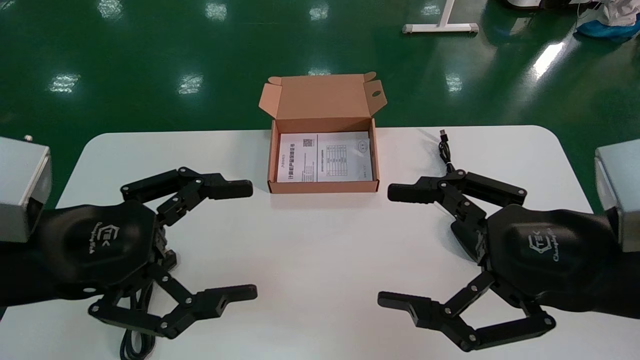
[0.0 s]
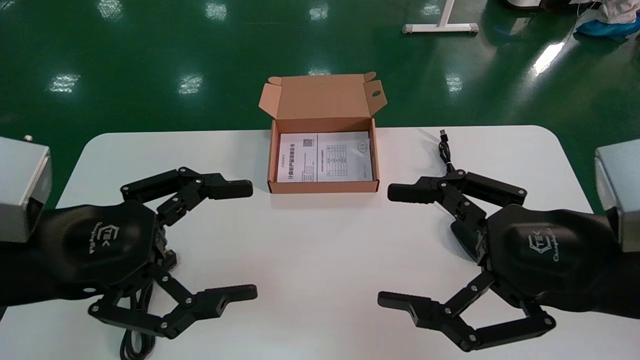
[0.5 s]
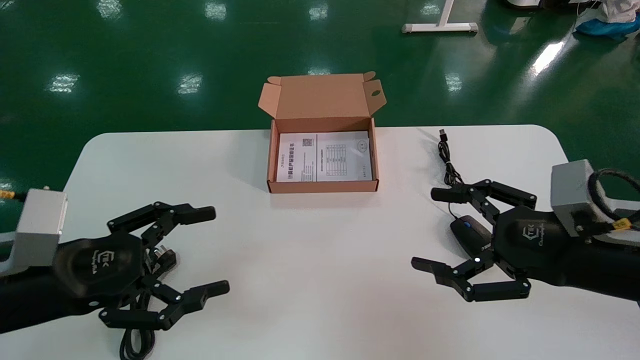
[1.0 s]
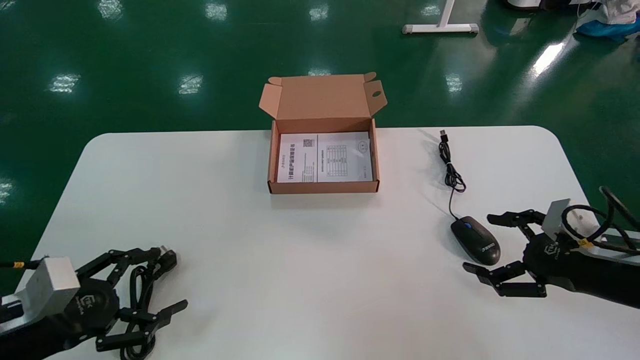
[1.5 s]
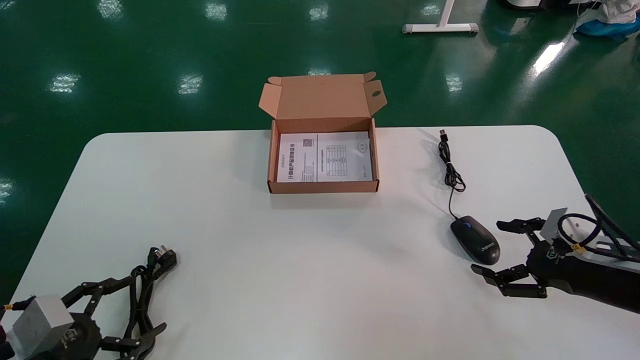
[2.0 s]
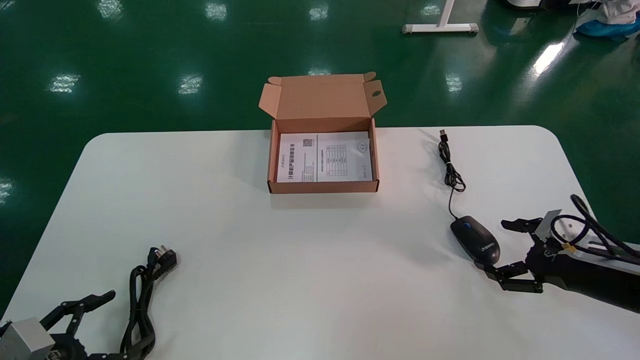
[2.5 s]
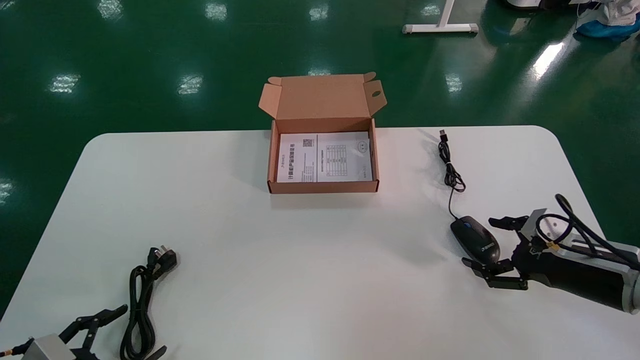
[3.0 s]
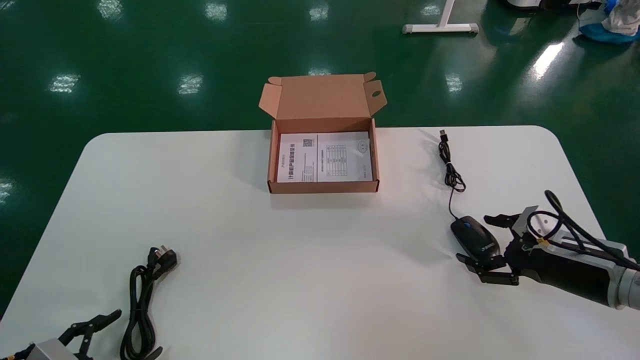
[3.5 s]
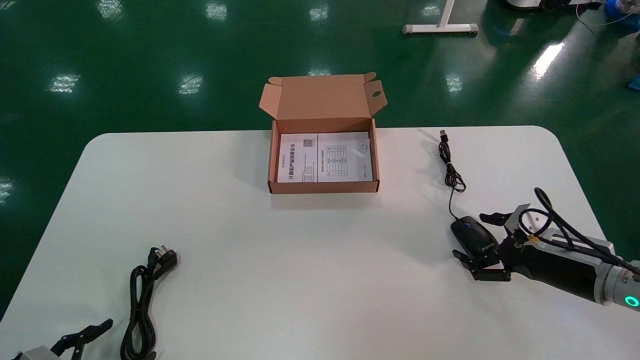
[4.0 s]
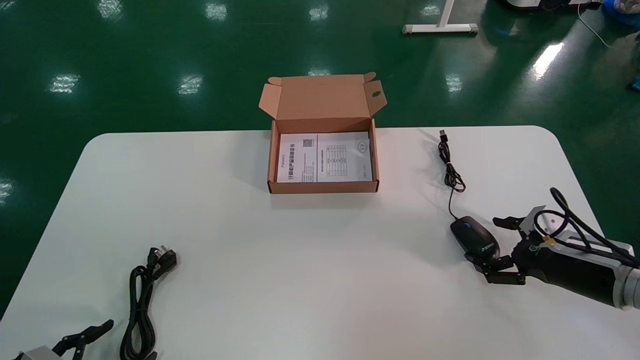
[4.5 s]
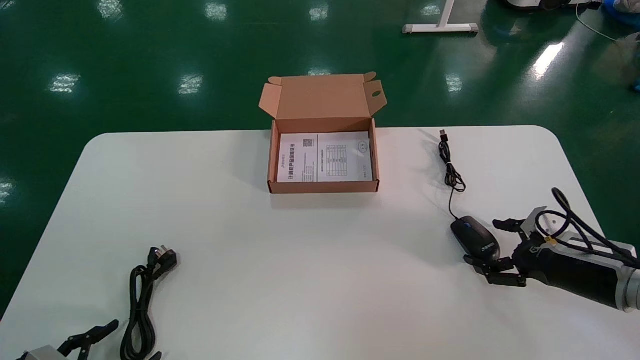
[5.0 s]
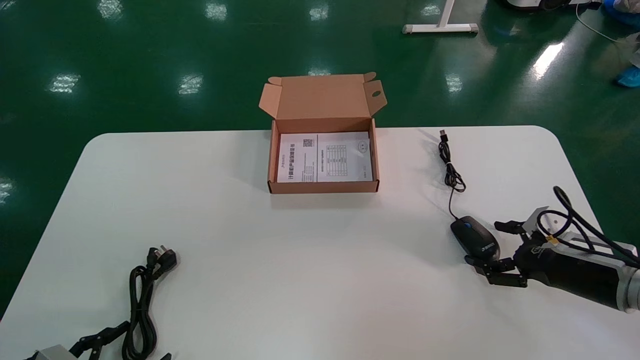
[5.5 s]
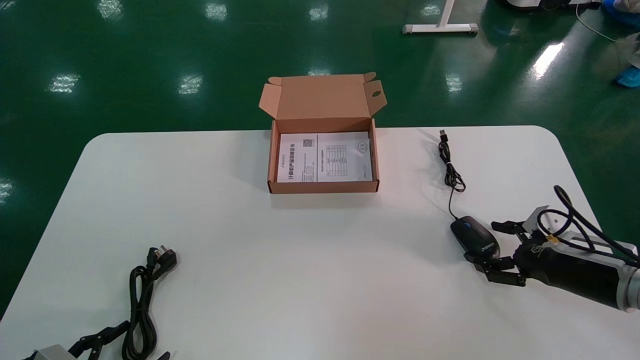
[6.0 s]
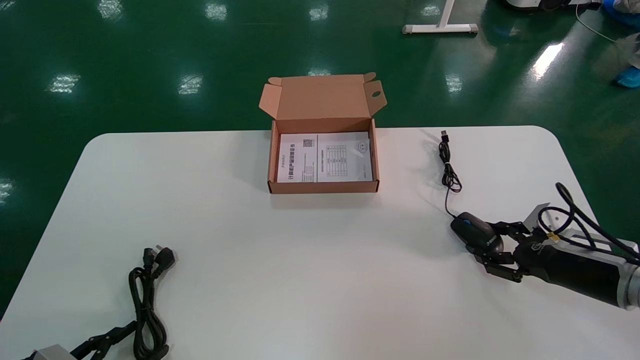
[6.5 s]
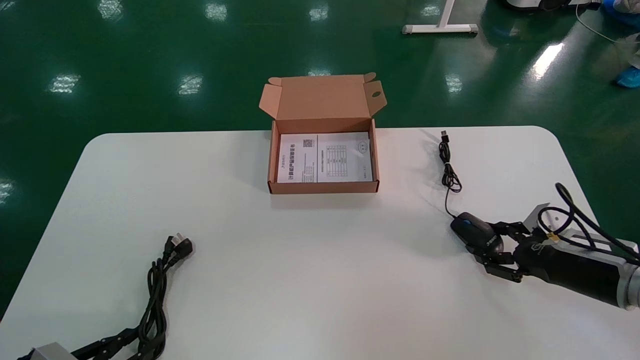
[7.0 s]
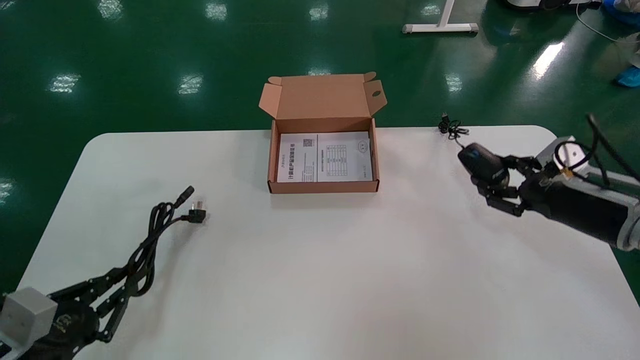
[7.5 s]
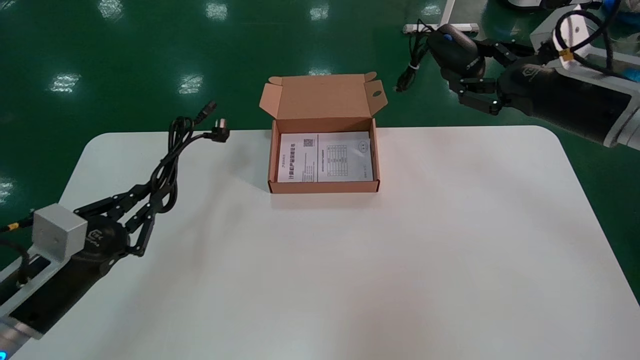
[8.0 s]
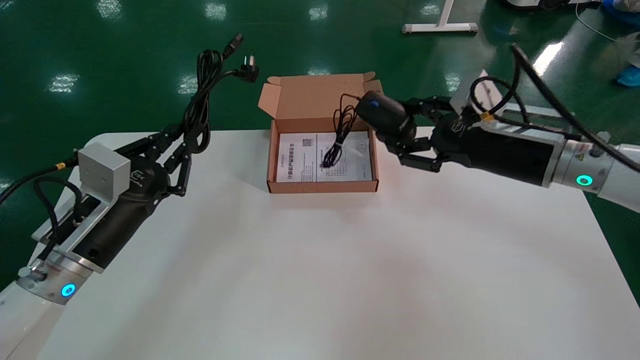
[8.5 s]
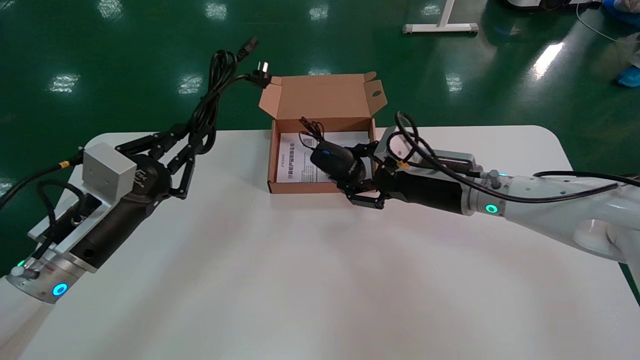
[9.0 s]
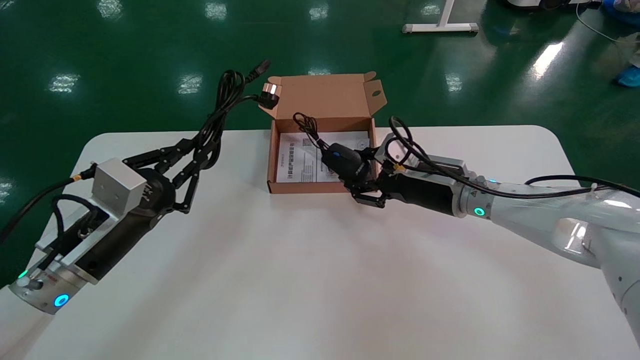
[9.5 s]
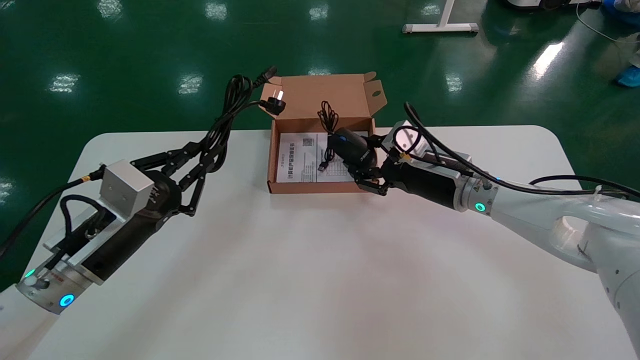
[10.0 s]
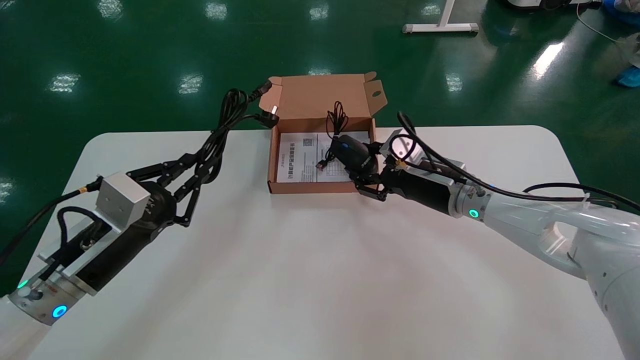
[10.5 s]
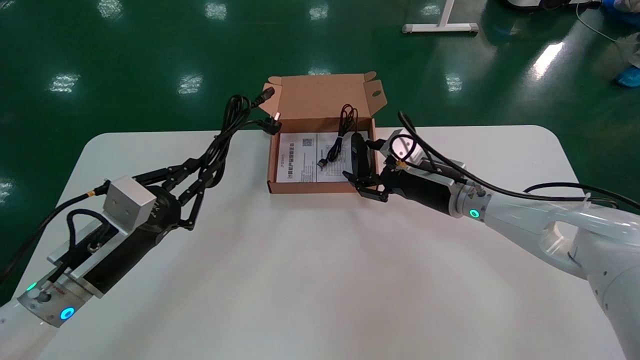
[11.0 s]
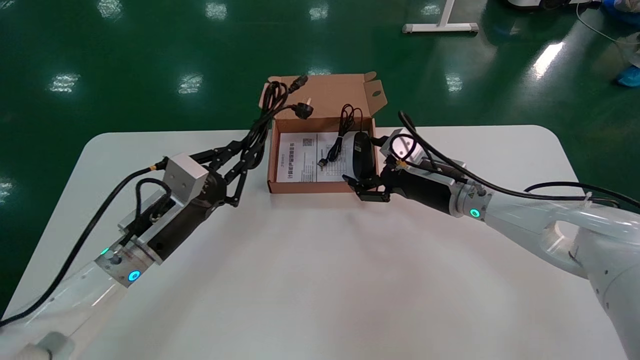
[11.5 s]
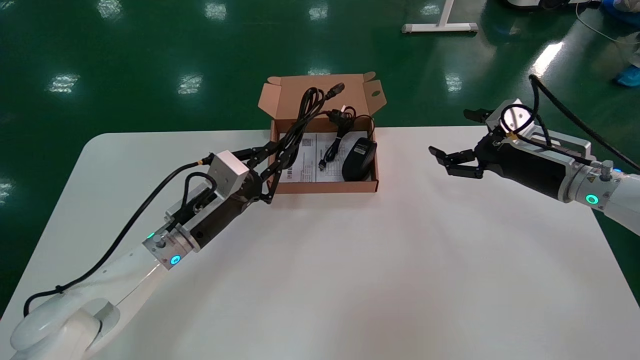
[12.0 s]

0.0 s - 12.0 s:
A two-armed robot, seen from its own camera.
Step, 1.5 s - 7.5 s: Grab and pick up the mouse and power cord from the accessory packaging area.
0.0 s - 2.0 s: The right gripper shifts approximately 25 cm to the right, downward and forward, while the left gripper goes about 25 cm downward and to the left.
2.0 s - 4.0 s: The left gripper travels downward by some 10 cm, while the right gripper moves approximately 5 cm.
4.0 s - 6.0 s: The grippers make only small movements.
6.0 s - 8.0 s: The left gripper shifts some 20 cm upward and forward, and closes up, while the right gripper is displaced upward by approximately 20 cm, and closes its fingers.
8.0 s - 10.0 s: The left gripper is displaced to the right and upward by roughly 10 cm; the right gripper shifts approximately 20 cm to the left, downward and forward.
10.0 s - 12.0 s: The right gripper travels to the right by about 15 cm, and opens; the left gripper moves forward and to the right, some 15 cm.

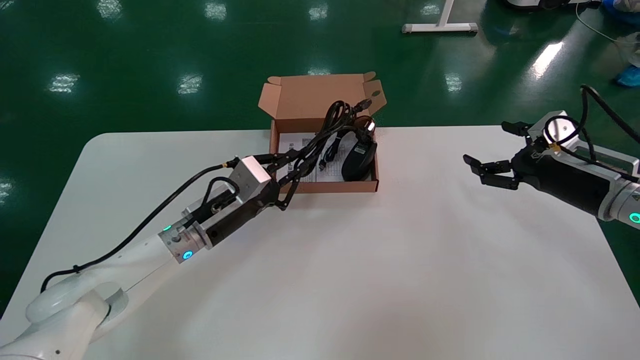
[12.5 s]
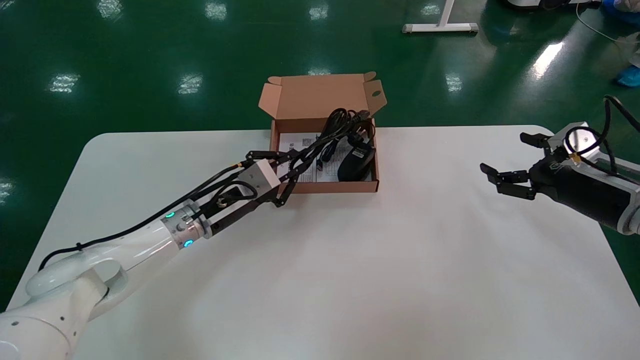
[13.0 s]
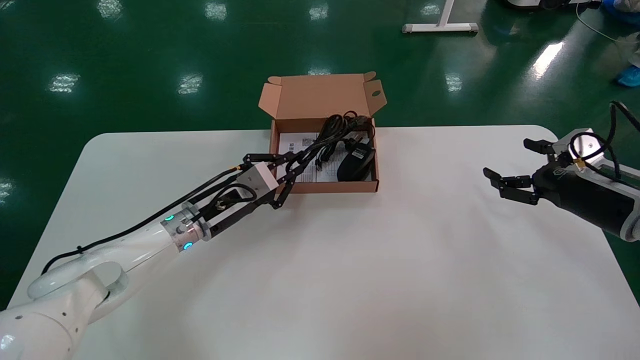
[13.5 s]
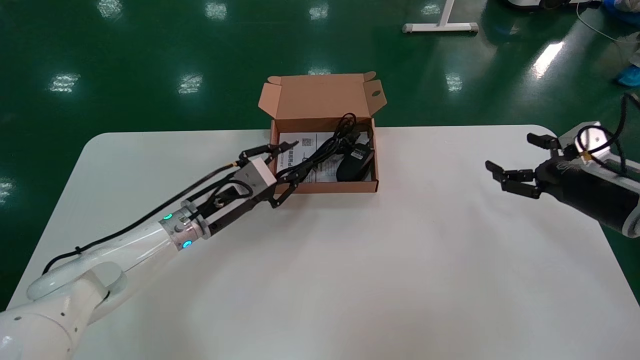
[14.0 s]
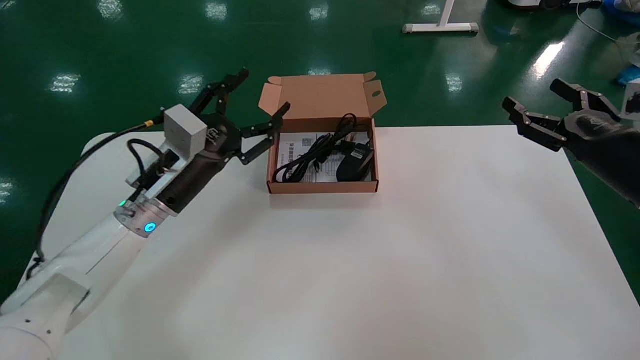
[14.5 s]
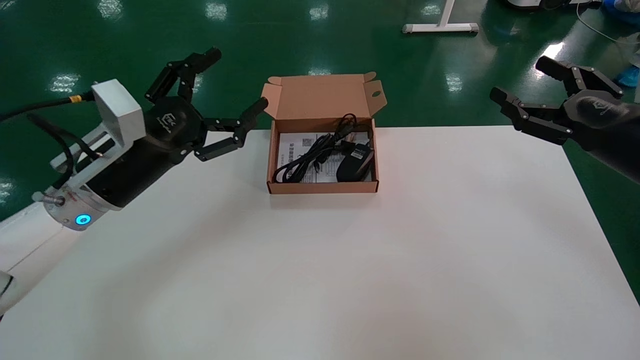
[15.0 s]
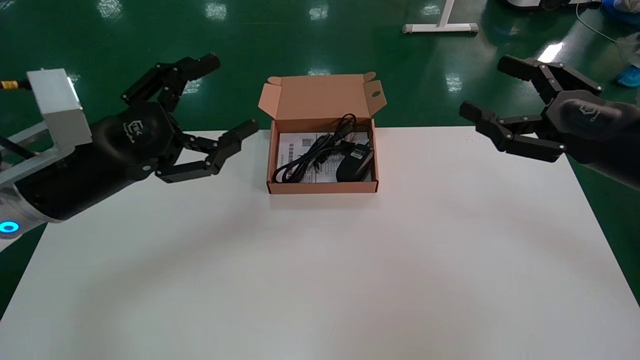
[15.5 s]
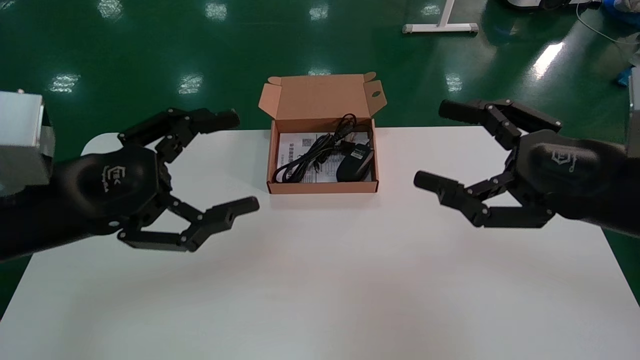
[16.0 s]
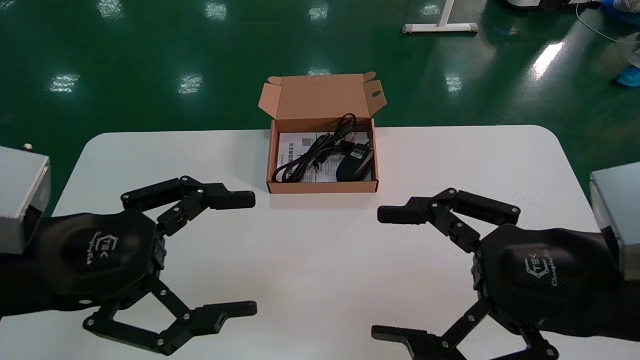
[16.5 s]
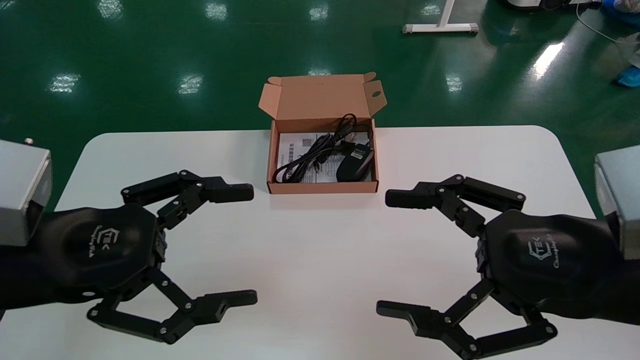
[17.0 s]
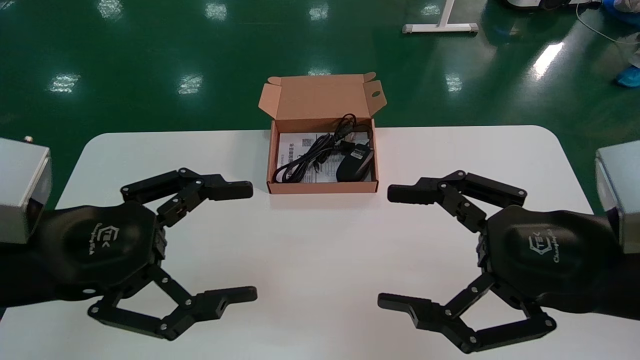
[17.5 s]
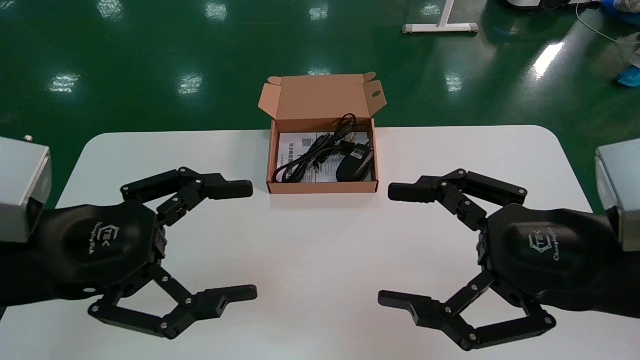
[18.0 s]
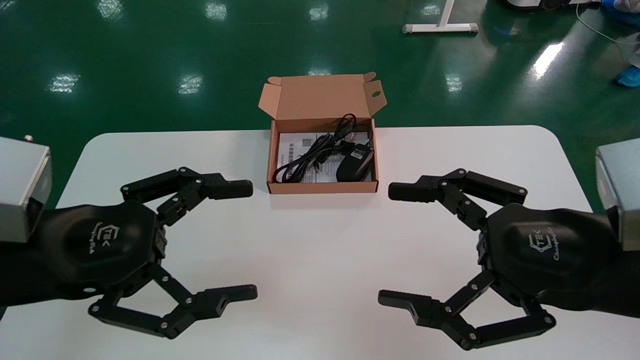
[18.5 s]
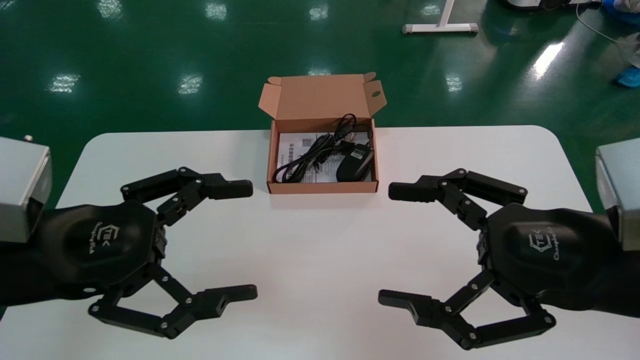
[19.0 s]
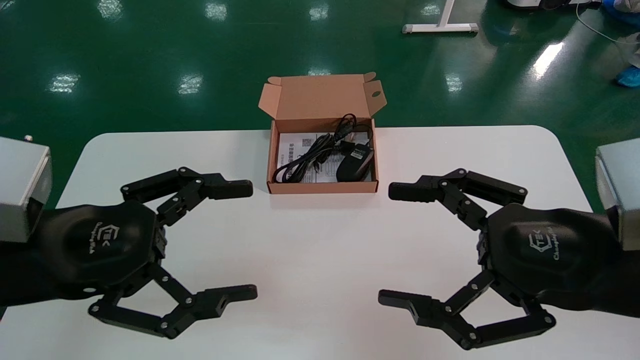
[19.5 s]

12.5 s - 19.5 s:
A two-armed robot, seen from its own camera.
12.5 s - 14.5 s: The left gripper goes about 5 cm upward, and opens up. The right gripper ends up about 5 cm from where it was.
14.5 s - 16.0 s: The left gripper shifts about 15 cm backward, and opens up. The right gripper shifts about 20 cm backward and to the left.
16.0 s - 17.5 s: The right gripper heads backward, covering some 5 cm.
17.5 s - 19.5 s: Both grippers stay put.
